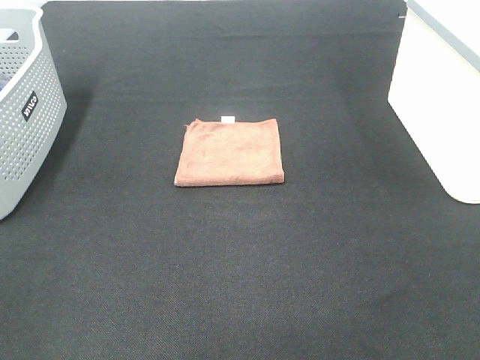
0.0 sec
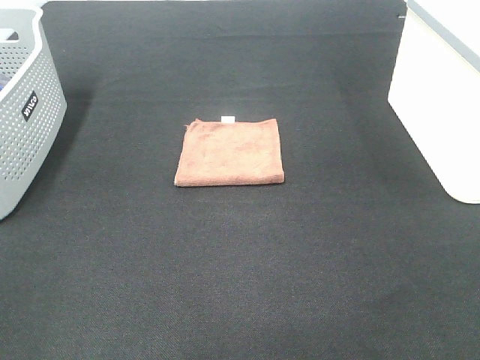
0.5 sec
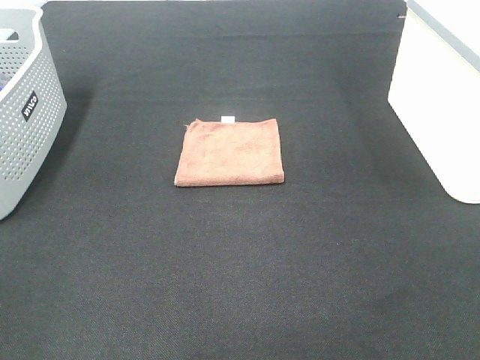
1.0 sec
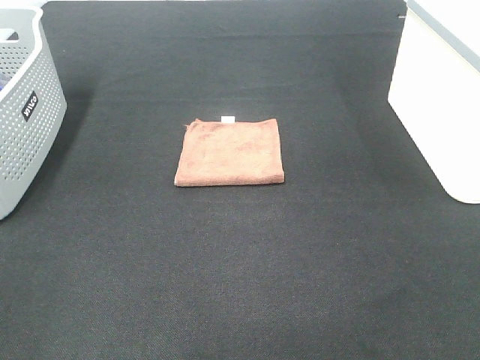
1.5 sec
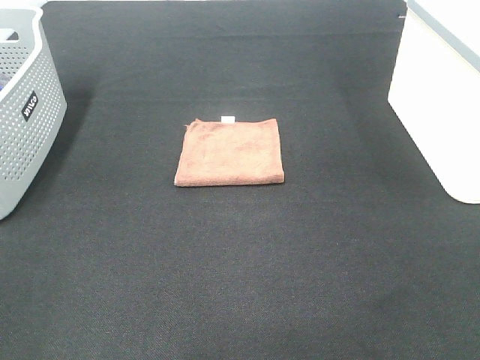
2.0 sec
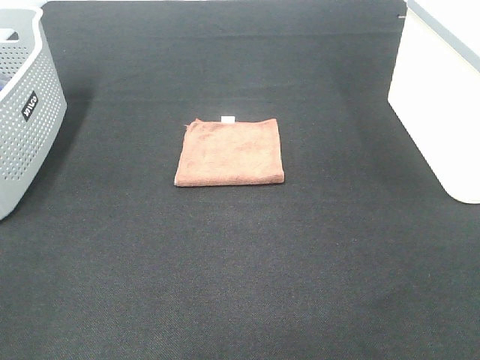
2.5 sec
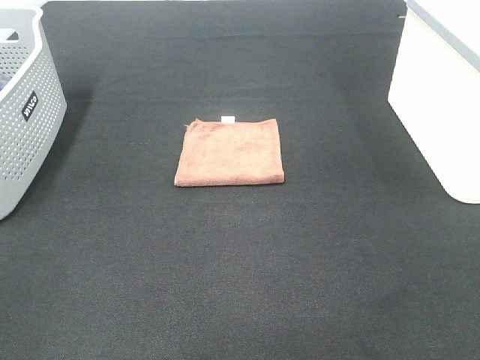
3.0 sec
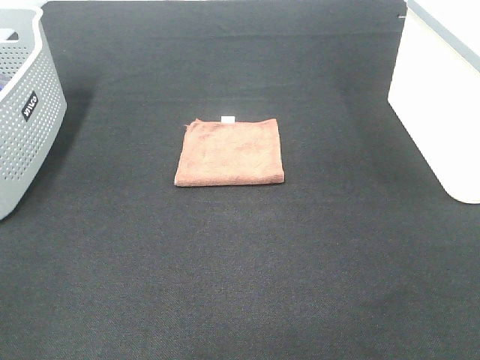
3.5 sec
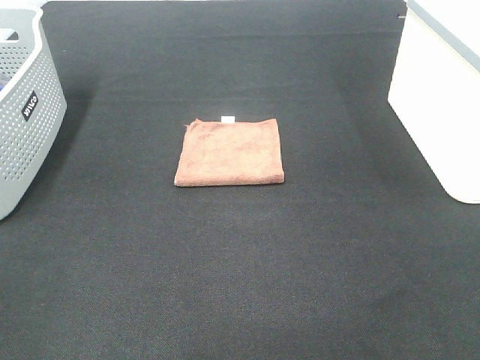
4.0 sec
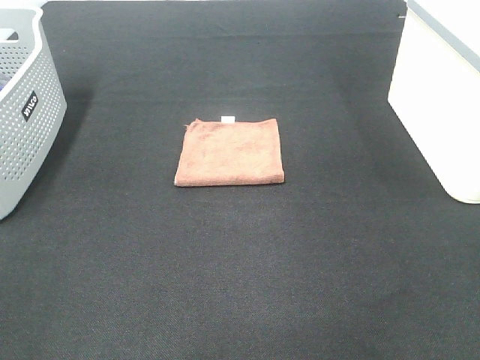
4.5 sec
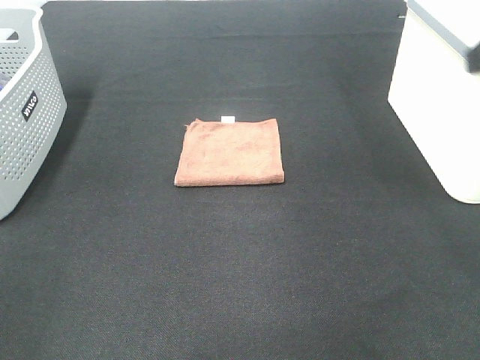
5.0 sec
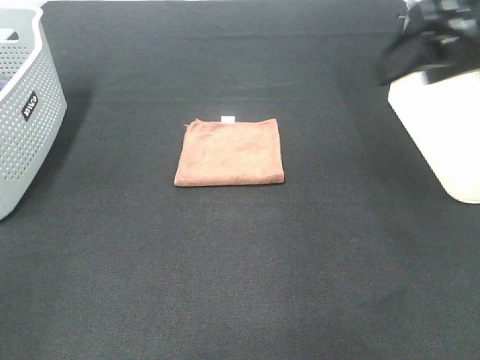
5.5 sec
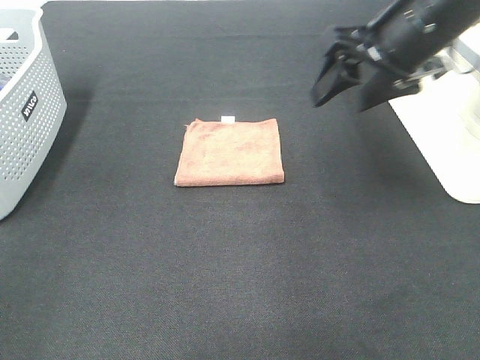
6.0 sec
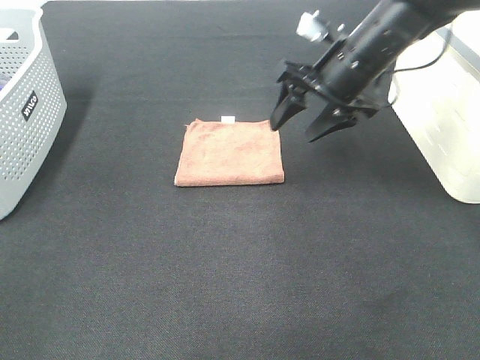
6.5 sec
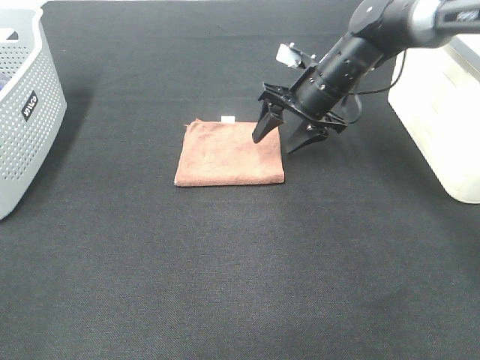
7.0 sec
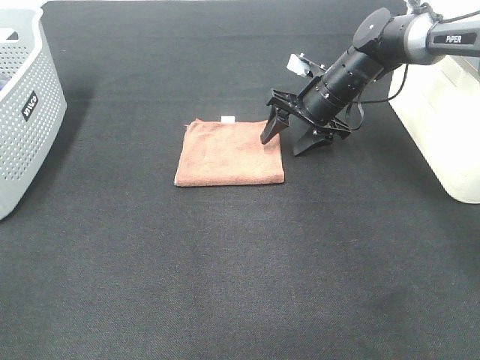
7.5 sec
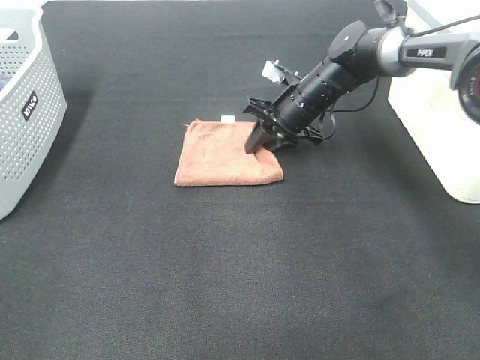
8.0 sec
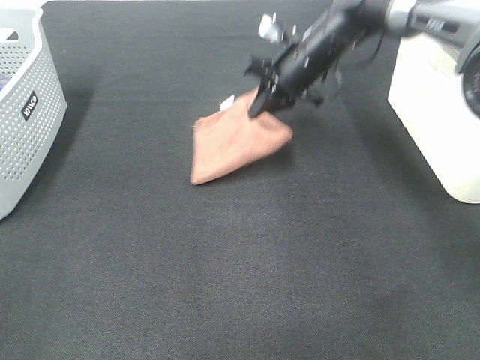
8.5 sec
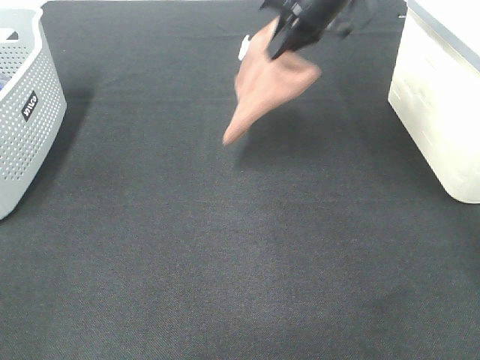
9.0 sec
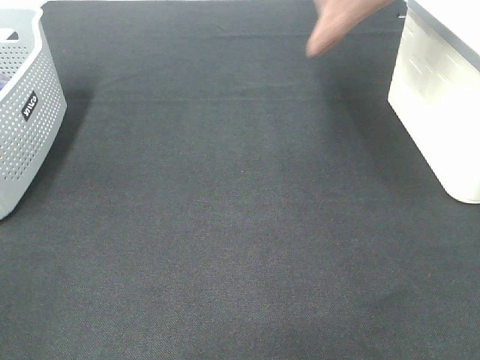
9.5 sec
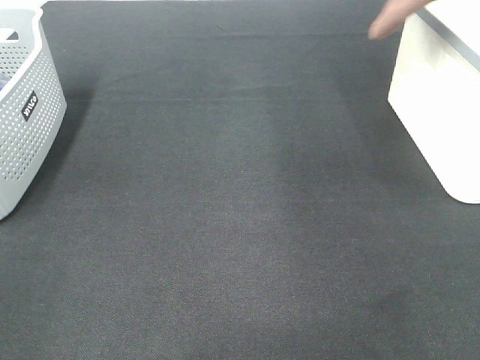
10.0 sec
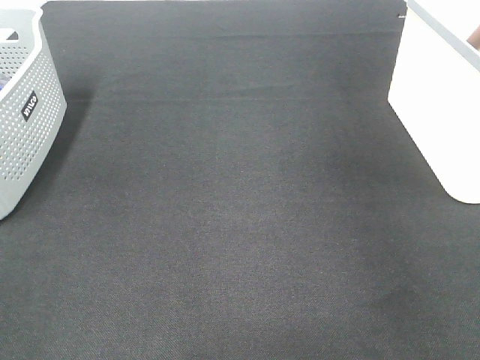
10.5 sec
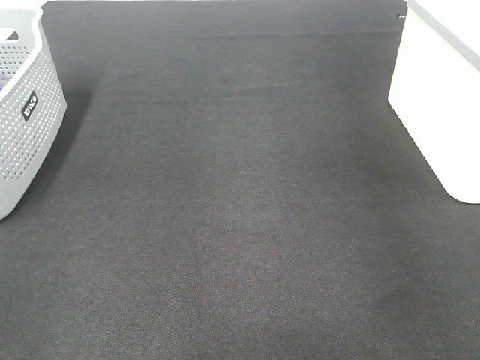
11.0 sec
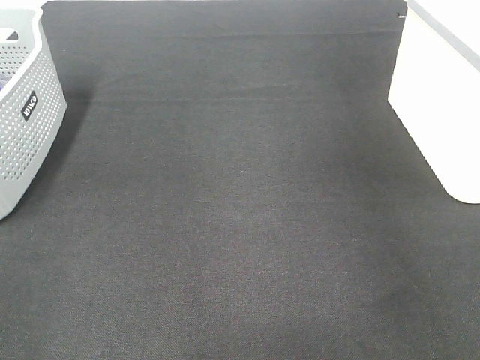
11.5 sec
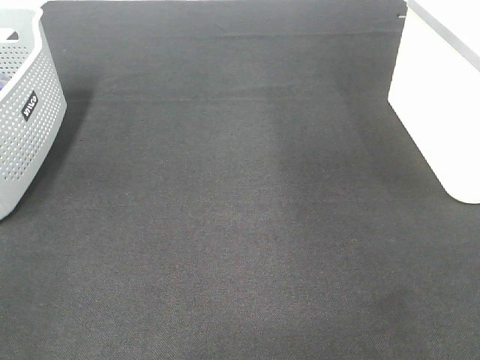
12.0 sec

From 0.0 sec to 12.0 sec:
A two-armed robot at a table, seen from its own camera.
Step, from 0.0 sec to 8.0 sec: Right hand: grab the folded brown towel.
Step, from 8.5 sec to 11.5 sec: Right hand: place the brown towel in right basket.
From 0.0 sec to 2.0 sec: Neither gripper changes place.
From 4.0 sec to 6.0 sec: The right gripper shifts approximately 30 cm forward.
From 6.0 sec to 8.0 sec: The right gripper is displaced downward and forward by about 25 cm, and closes.
From 8.0 sec to 10.0 sec: The right gripper goes some 35 cm upward and to the right.
From 10.0 sec to 12.0 sec: The right gripper reaches approximately 10 cm to the right, then returns, and opens up.

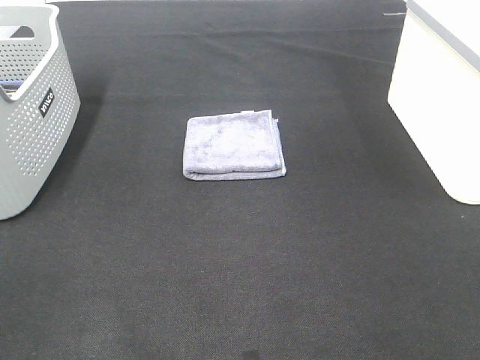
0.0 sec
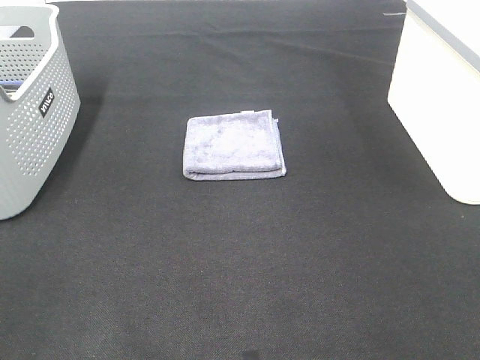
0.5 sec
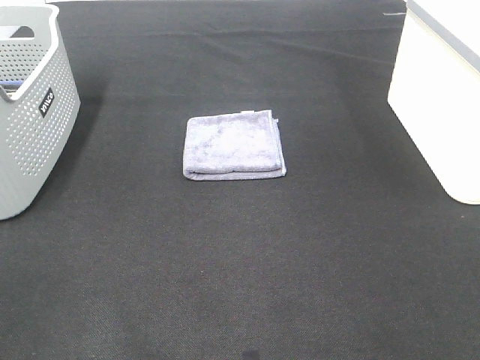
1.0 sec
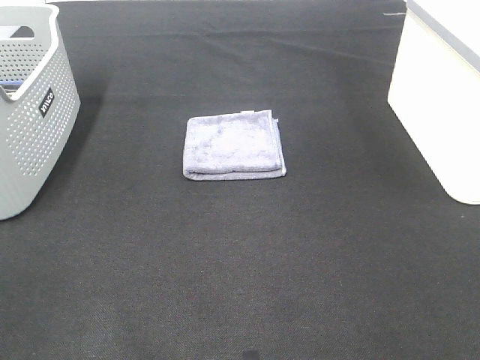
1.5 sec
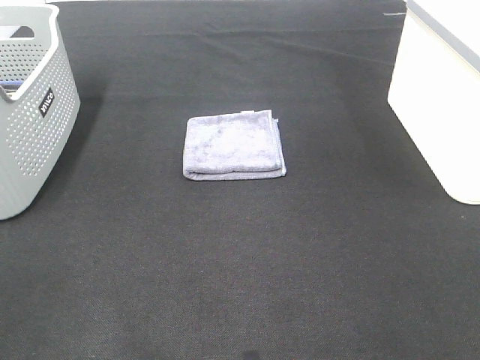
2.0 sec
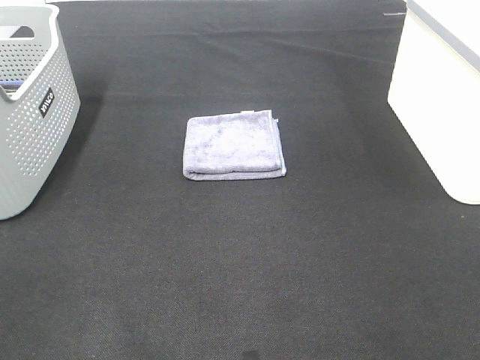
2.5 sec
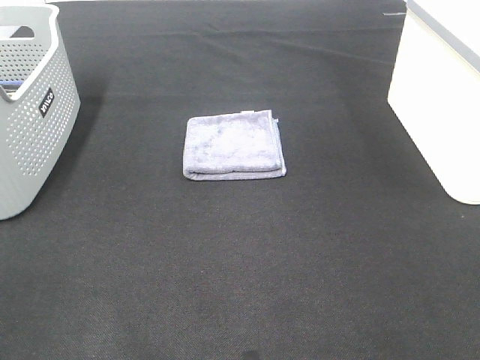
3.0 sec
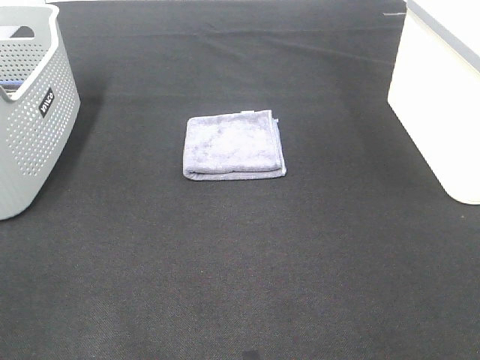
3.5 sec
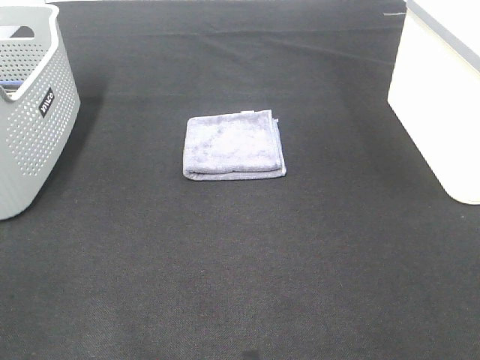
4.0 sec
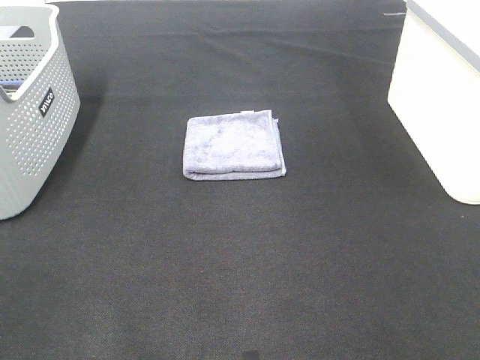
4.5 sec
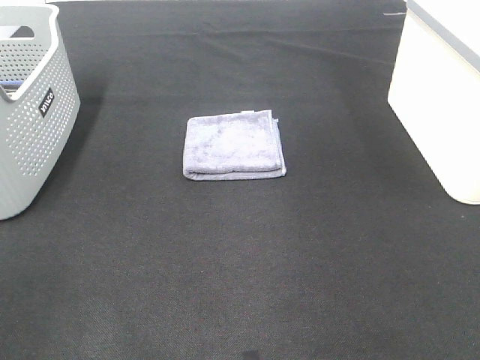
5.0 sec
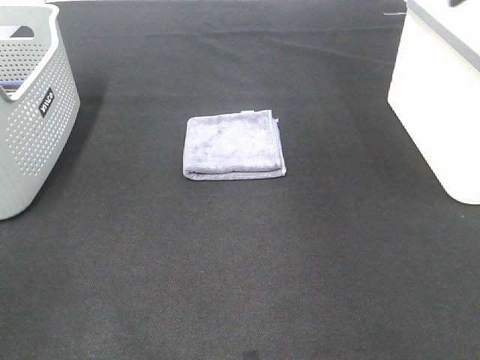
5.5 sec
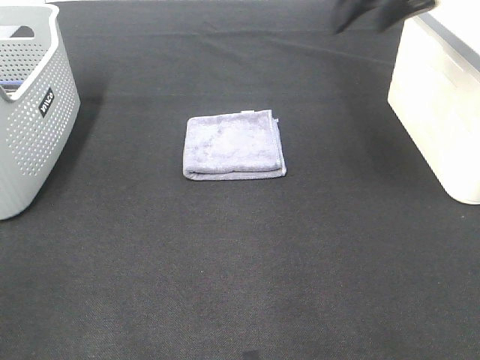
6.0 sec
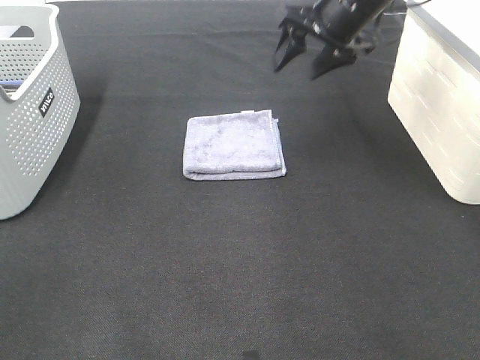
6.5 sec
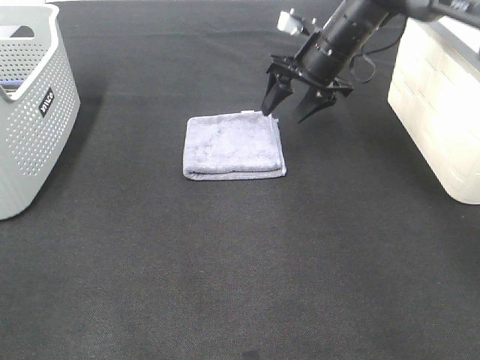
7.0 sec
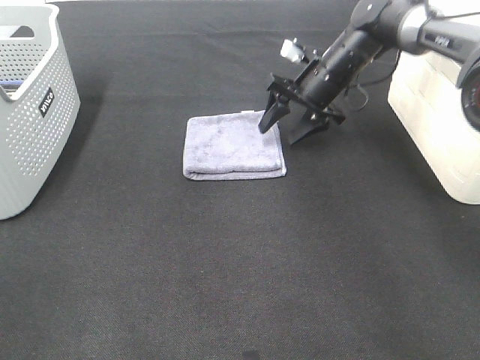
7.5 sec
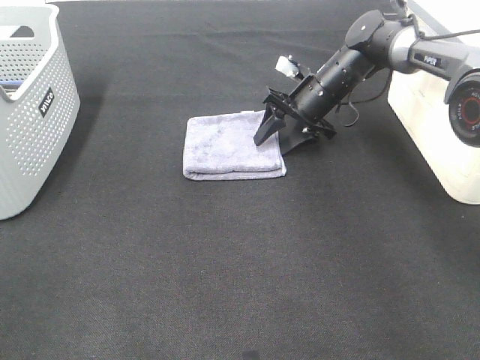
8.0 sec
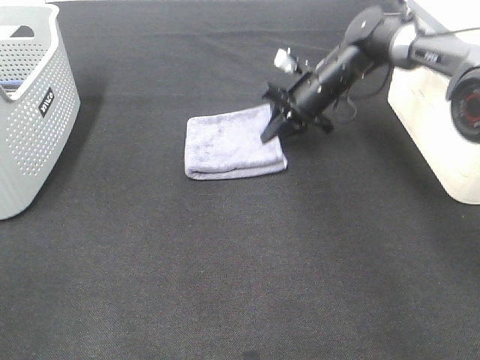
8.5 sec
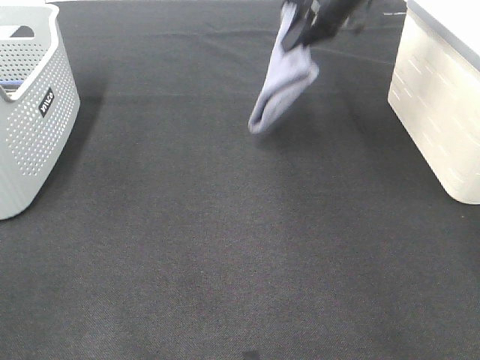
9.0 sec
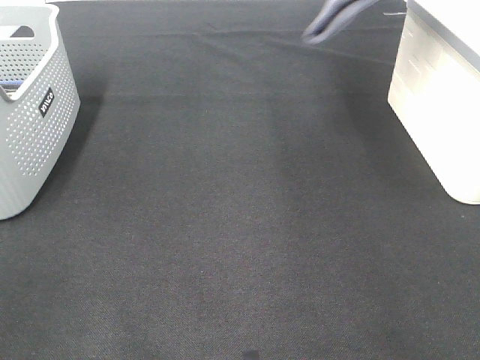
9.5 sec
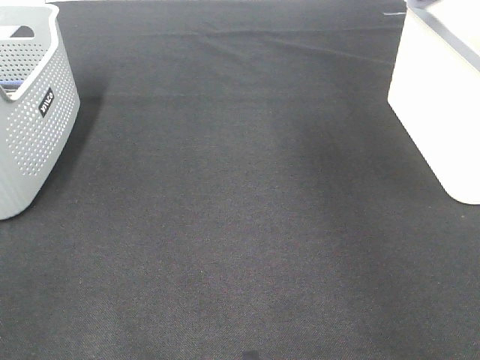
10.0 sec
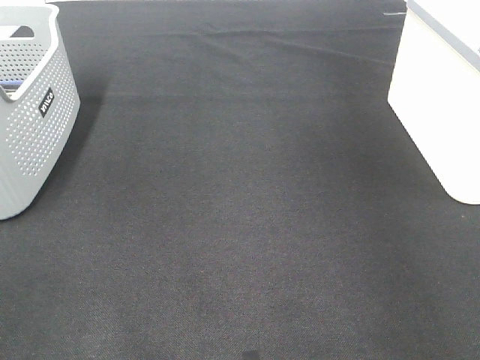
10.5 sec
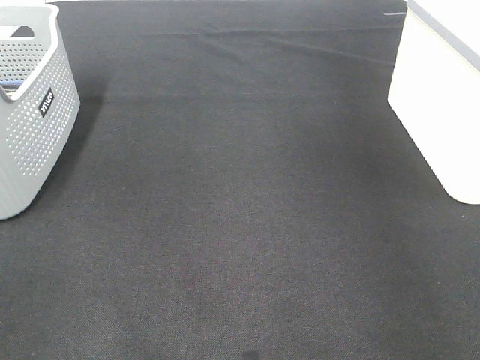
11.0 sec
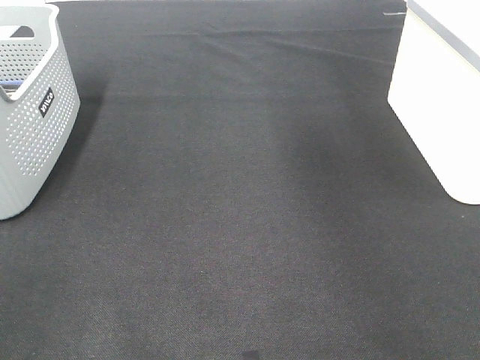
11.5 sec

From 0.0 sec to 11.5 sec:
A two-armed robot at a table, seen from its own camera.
Step, from 0.0 sec to 8.0 sec: Right hand: grab the folded grey towel.
Step, from 8.5 sec to 10.5 sec: Right hand: place the grey towel in right basket.
From 0.0 sec to 4.0 sec: The two grippers keep their place.
From 4.0 sec to 6.0 sec: The right gripper travels forward by approximately 40 cm.
From 6.0 sec to 7.5 sec: The right gripper moves downward and forward, about 25 cm.
From 7.5 sec to 9.5 sec: The right gripper shifts roughly 30 cm upward, and closes up.
From 9.5 sec to 11.5 sec: The right gripper heads to the right, covering some 5 cm, and opens its fingers.

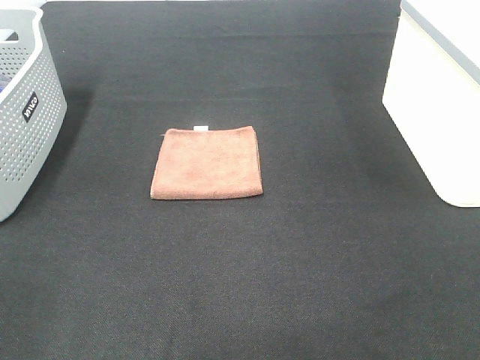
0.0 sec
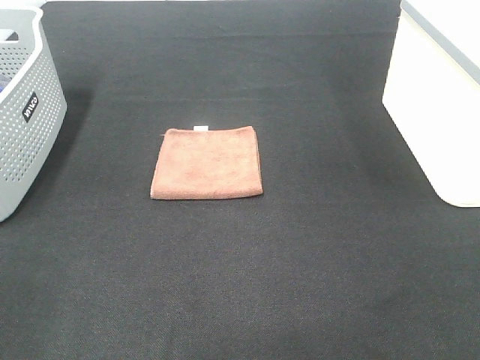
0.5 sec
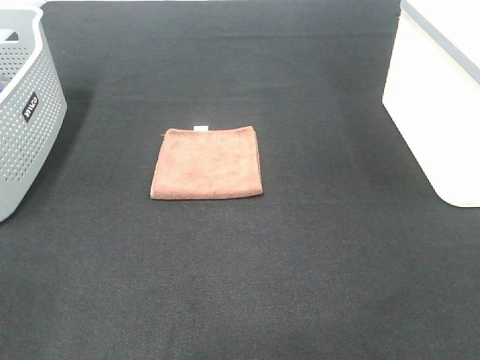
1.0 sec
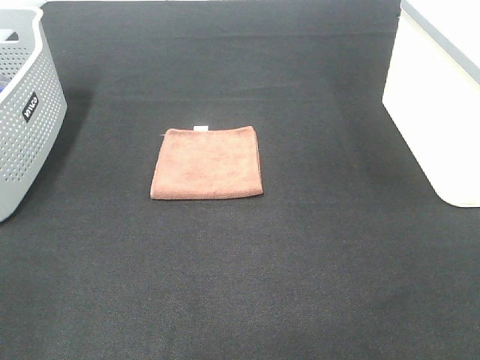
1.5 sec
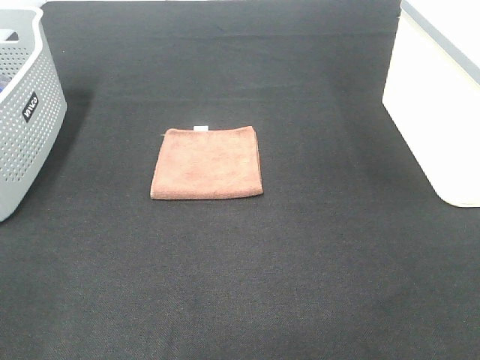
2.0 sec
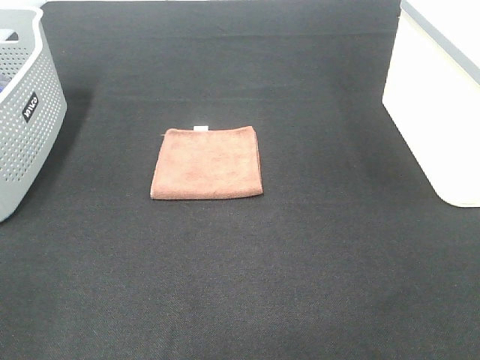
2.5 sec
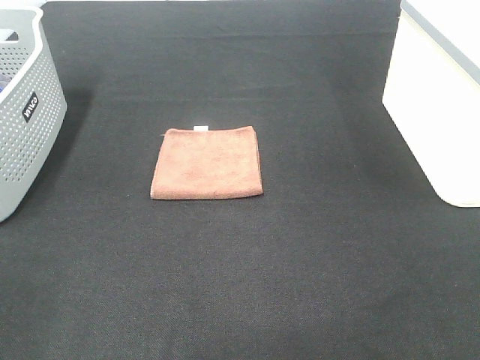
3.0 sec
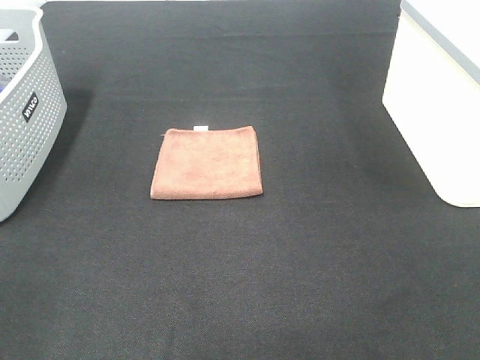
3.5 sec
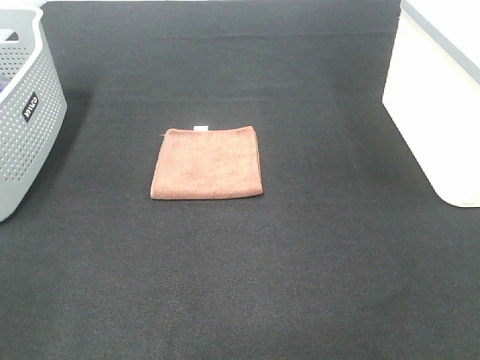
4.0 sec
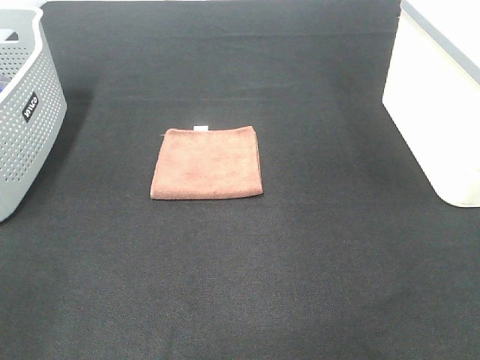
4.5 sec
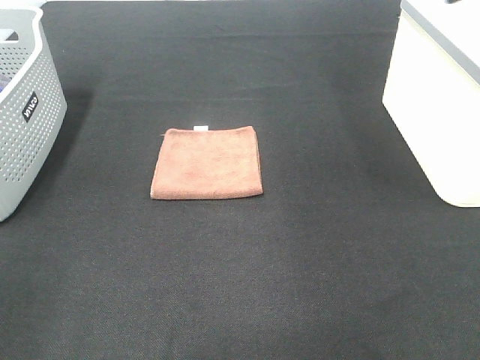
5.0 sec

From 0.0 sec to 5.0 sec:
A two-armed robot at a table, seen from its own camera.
From 0.0 sec to 2.5 sec: Both grippers stay put.
